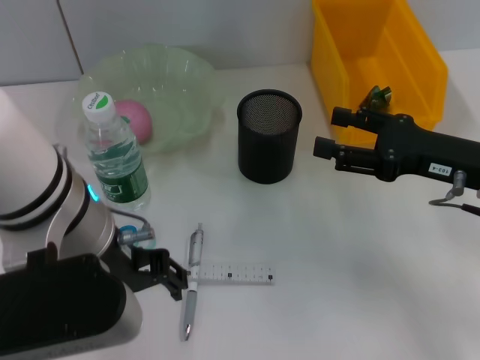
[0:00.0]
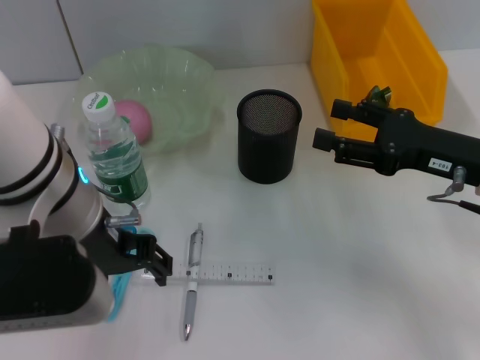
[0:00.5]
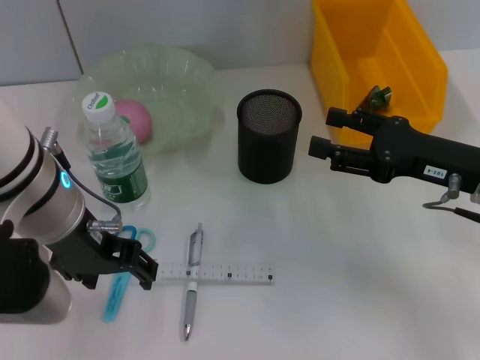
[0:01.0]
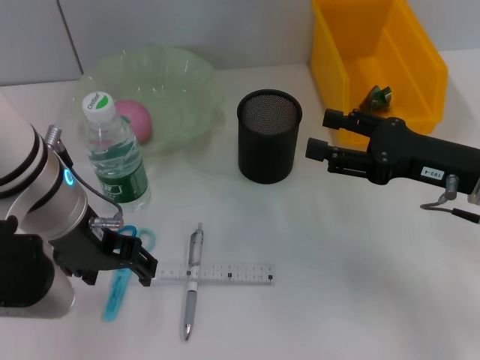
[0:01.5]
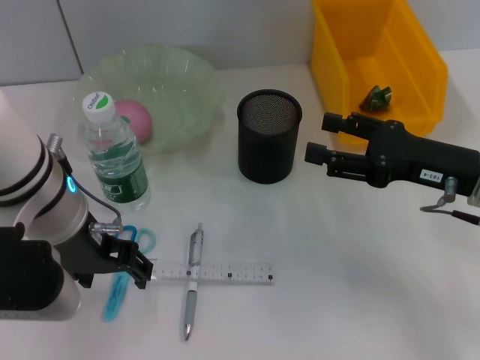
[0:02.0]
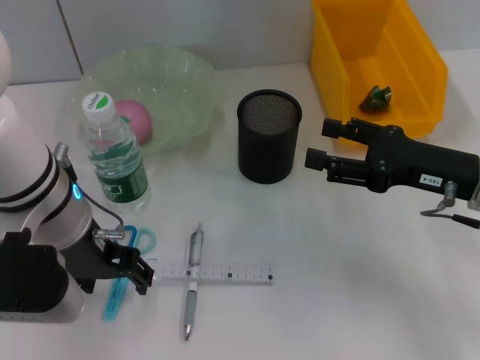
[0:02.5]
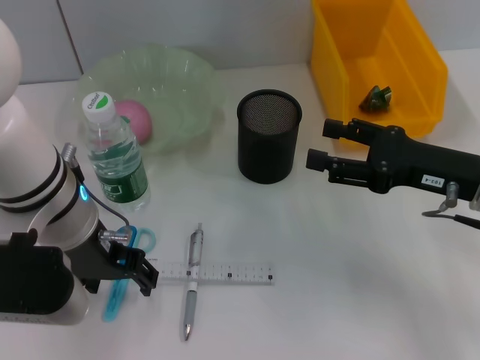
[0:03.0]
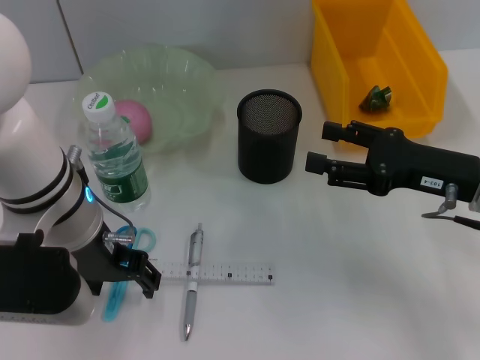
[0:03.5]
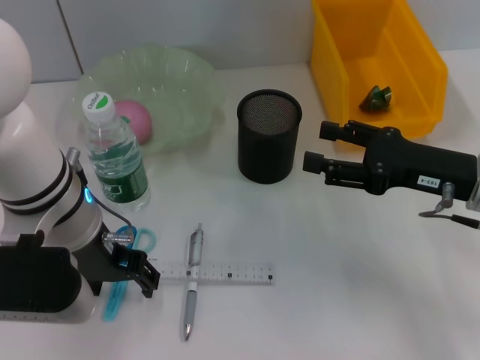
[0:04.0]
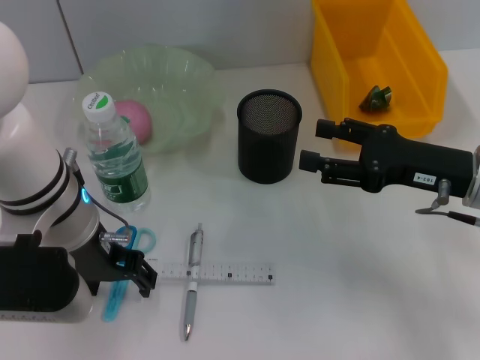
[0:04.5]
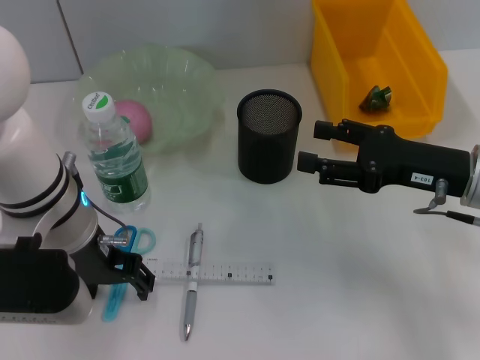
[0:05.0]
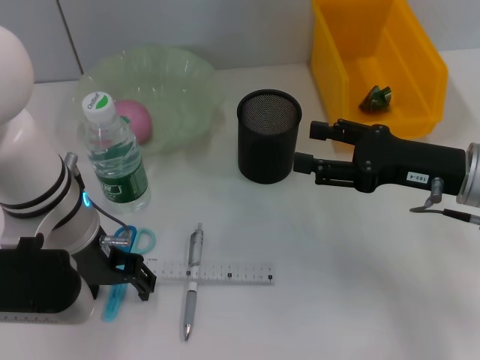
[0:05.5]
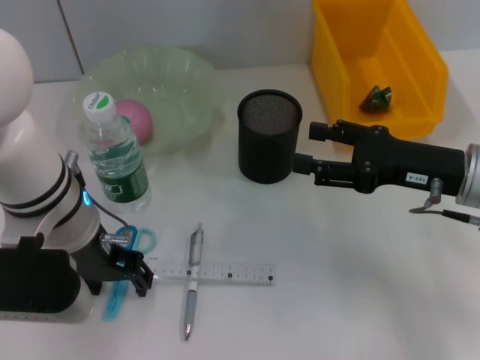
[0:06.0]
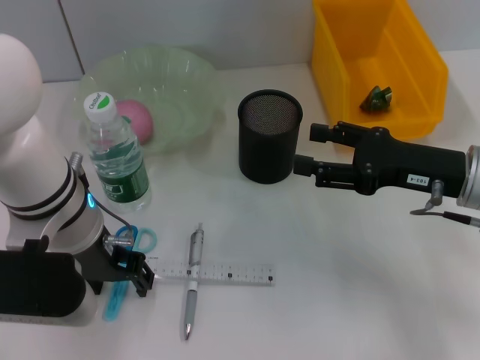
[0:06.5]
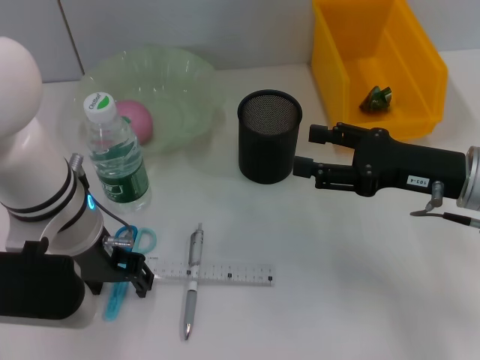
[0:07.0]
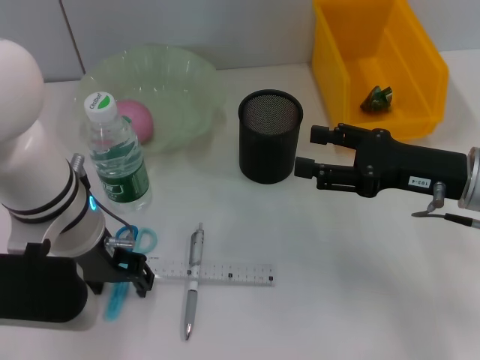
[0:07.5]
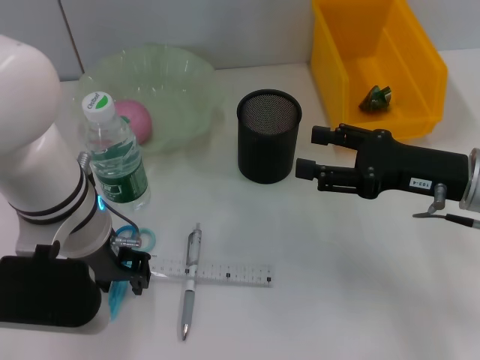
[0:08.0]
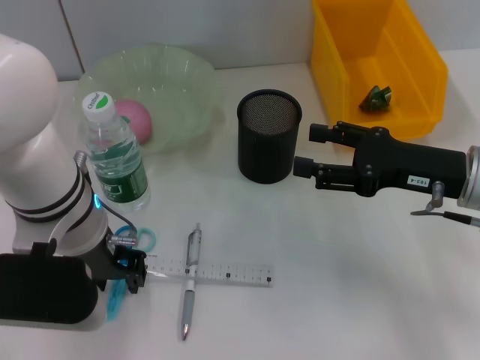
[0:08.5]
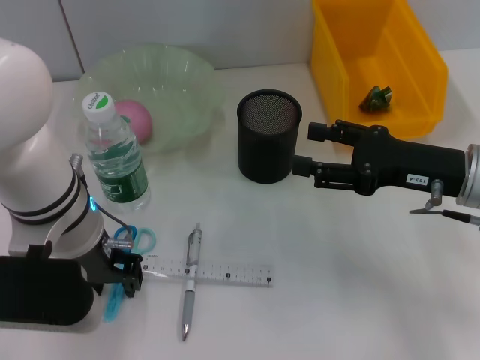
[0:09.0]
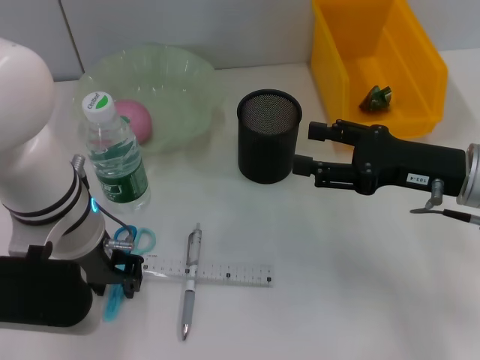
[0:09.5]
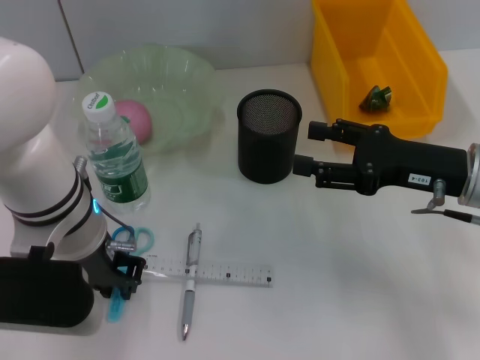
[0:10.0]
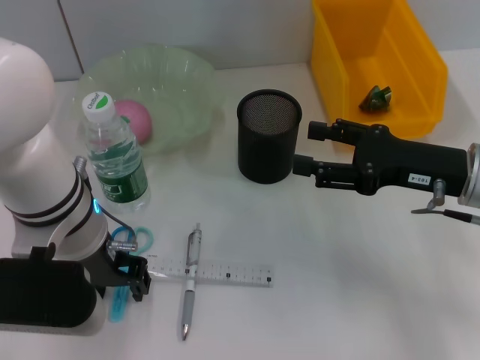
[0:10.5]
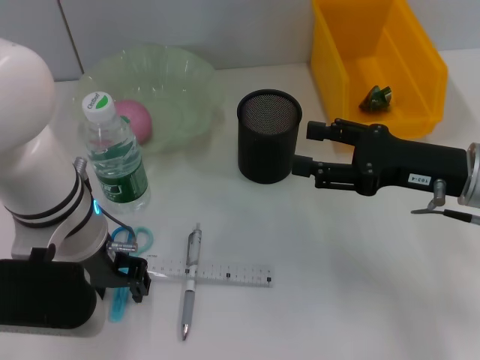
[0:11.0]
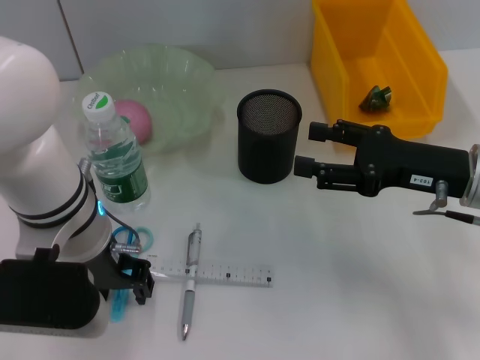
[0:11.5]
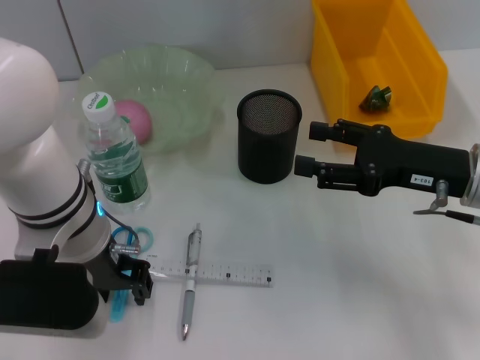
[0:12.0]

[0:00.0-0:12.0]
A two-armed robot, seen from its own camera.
0:00.0 to 0:02.0: The left gripper moves roughly 5 cm.
0:02.0 to 0:04.0: The grippers move only a little.
0:04.0 to 0:06.0: Both grippers stay put.
0:06.0 to 0:08.0: The grippers stay close to where they were, moving slightly.
0:08.0 to 0:10.0: The left gripper closes up.
0:10.0 to 0:12.0: The left gripper opens.

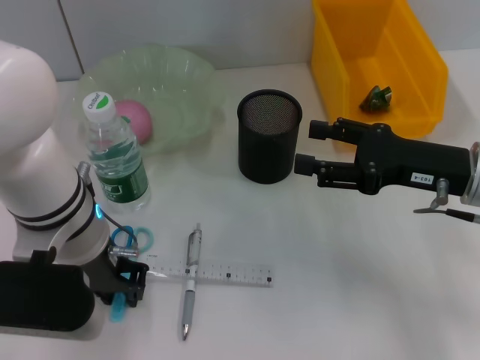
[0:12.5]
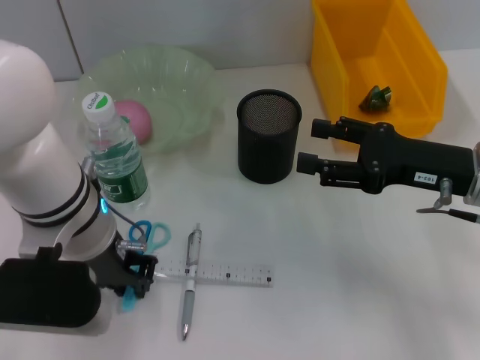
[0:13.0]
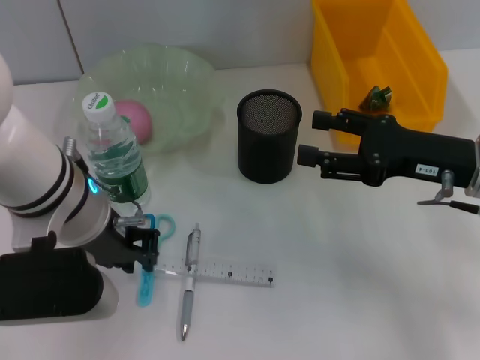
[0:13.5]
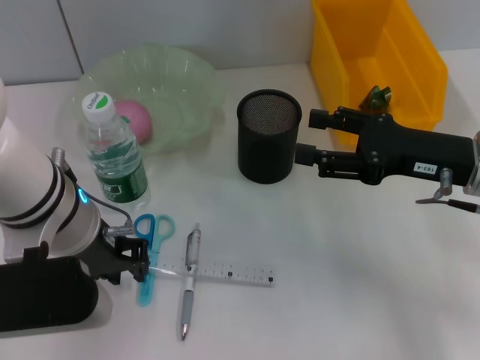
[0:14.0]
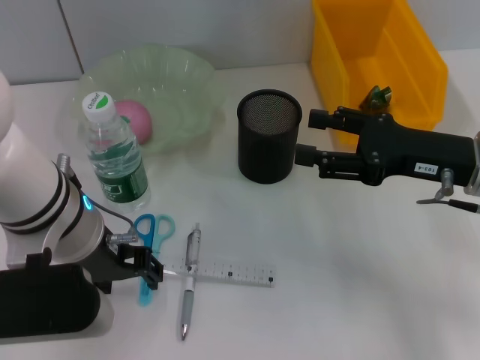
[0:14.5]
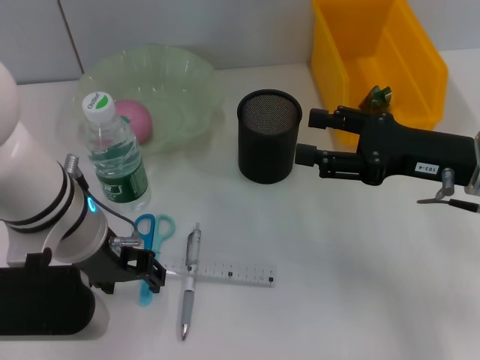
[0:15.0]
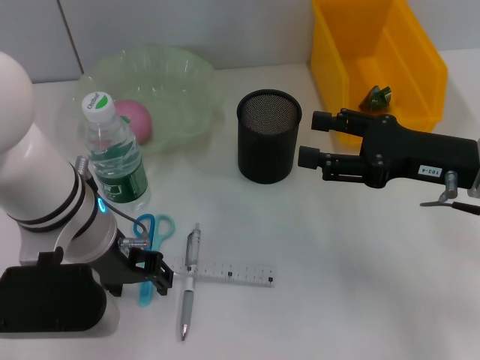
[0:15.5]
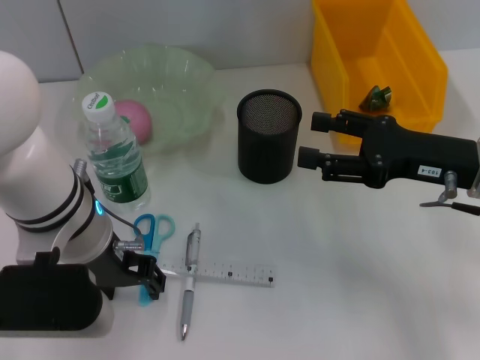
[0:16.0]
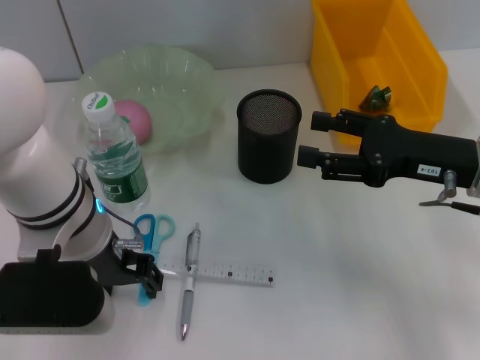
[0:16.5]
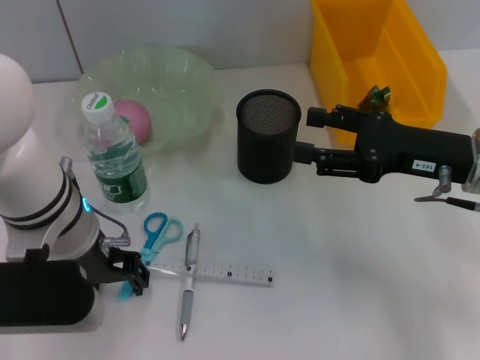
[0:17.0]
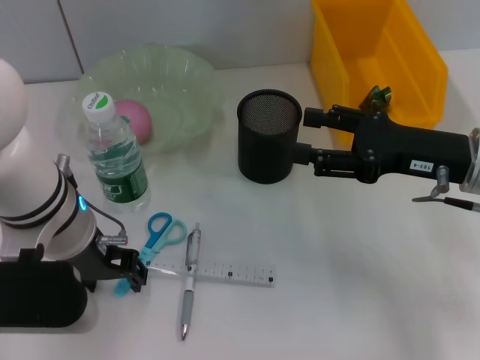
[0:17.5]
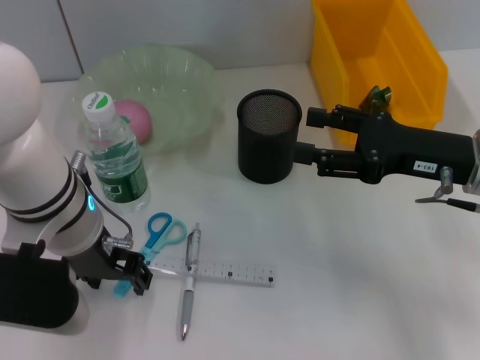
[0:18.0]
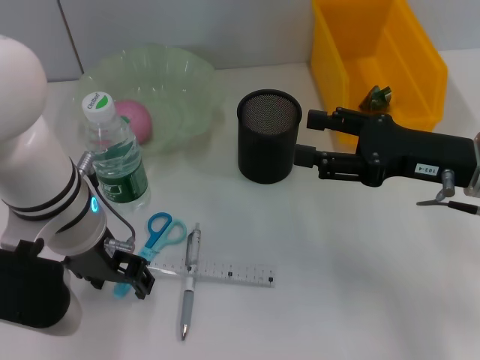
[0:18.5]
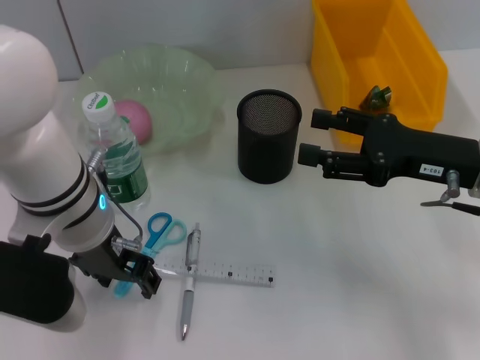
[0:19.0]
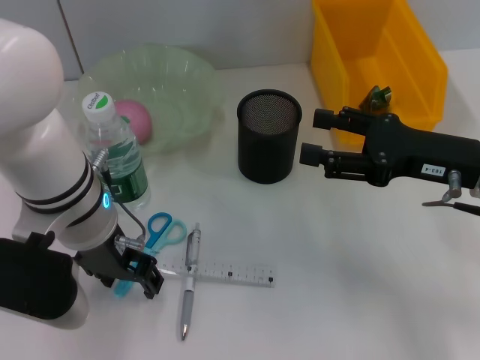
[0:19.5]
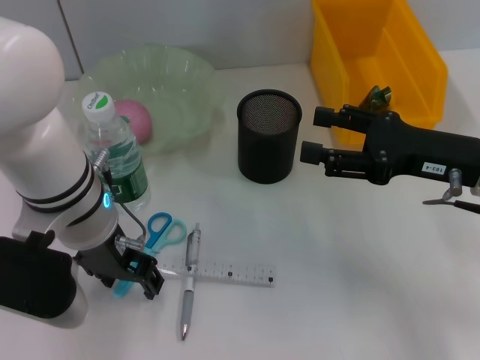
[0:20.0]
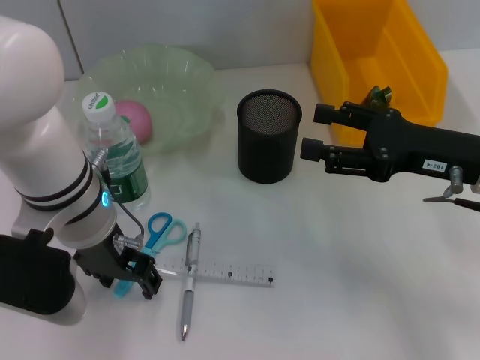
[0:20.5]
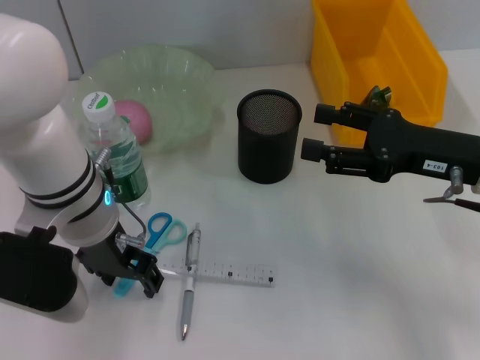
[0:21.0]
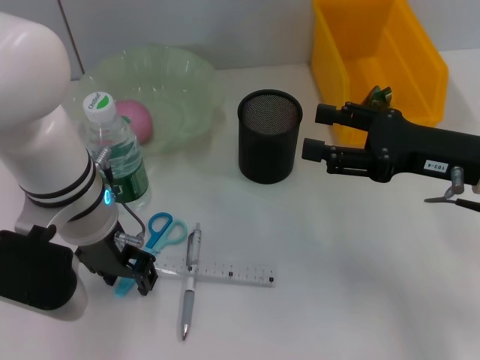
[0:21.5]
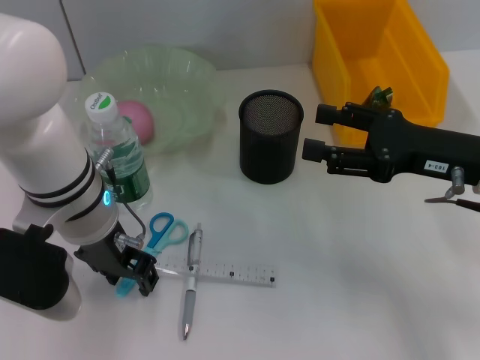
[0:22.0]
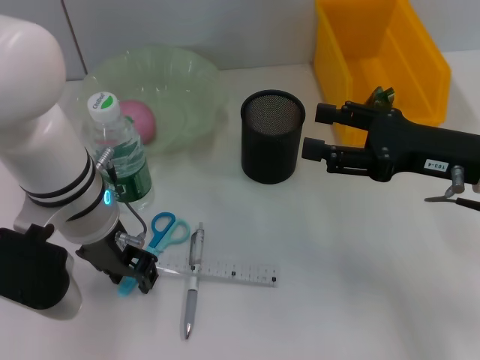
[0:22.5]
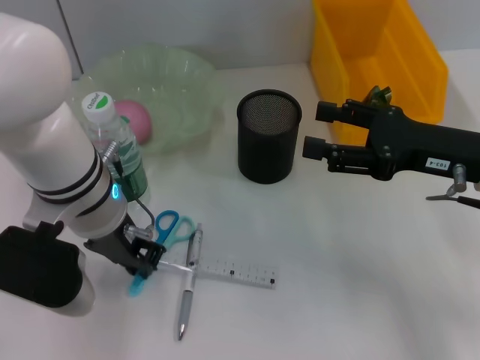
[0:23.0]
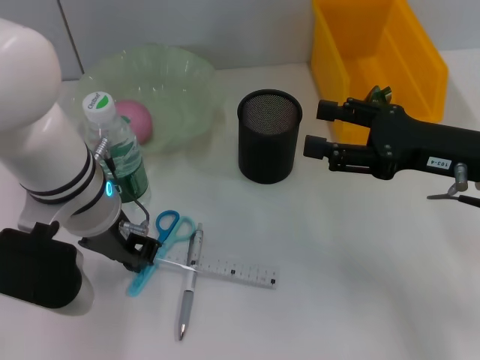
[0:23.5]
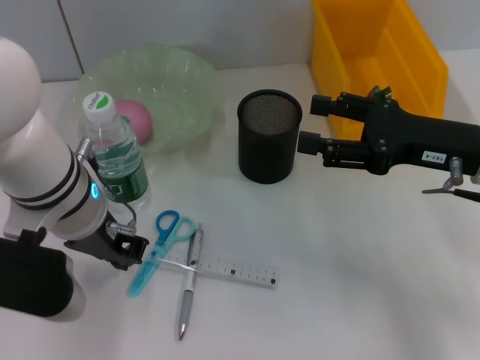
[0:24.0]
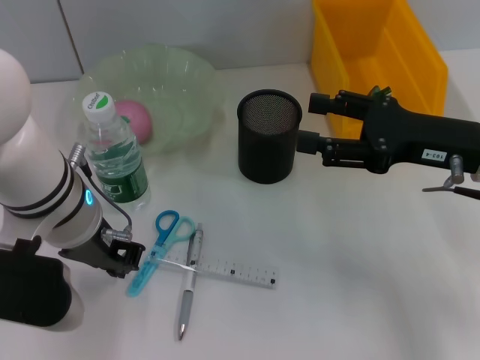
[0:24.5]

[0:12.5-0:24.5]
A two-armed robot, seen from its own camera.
0:12.5 to 0:18.5: There are only small adjustments of the grippers.
0:18.5 to 0:20.5: Both grippers stay put.
0:20.5 to 0:22.5: Both grippers stay put.
0:22.5 to 0:24.5: The left gripper closes its fingers.

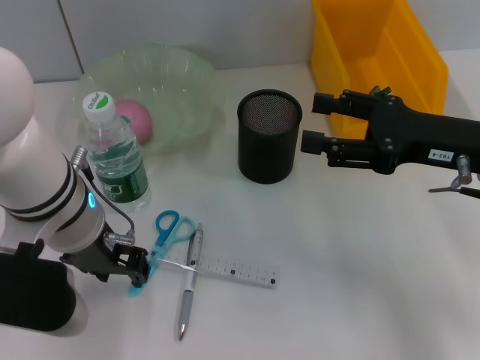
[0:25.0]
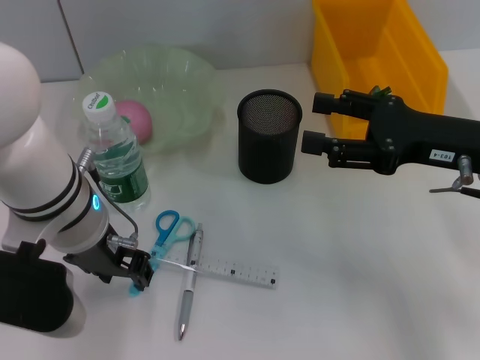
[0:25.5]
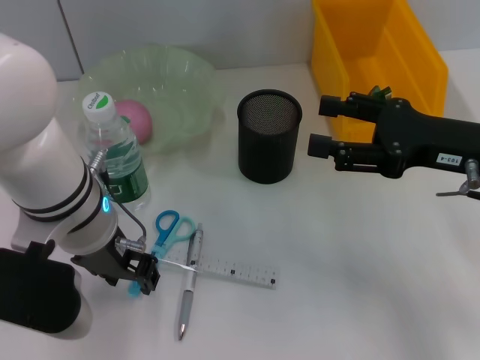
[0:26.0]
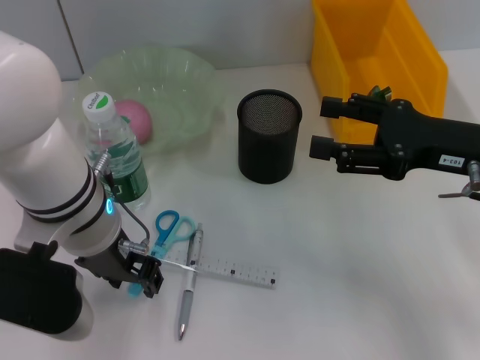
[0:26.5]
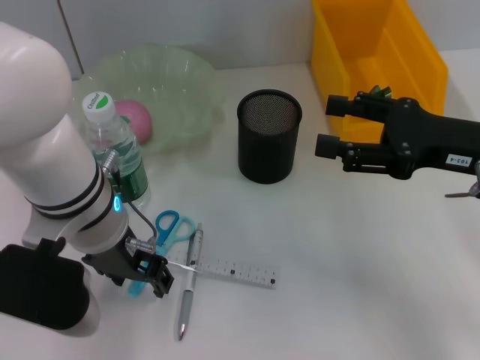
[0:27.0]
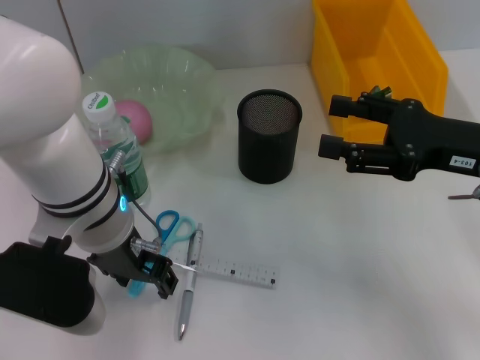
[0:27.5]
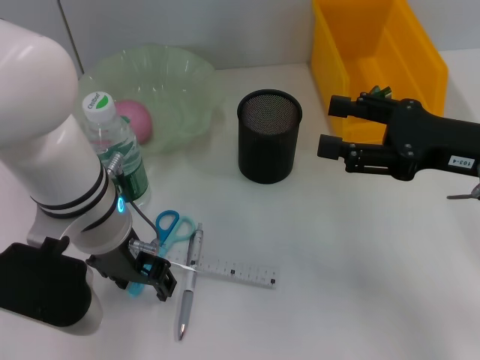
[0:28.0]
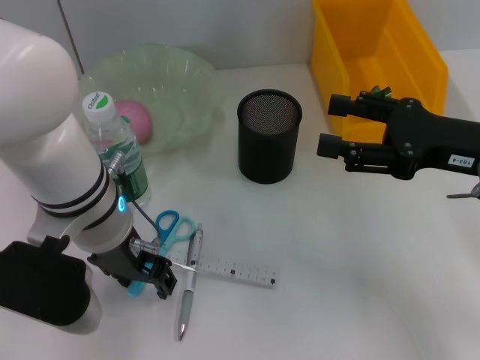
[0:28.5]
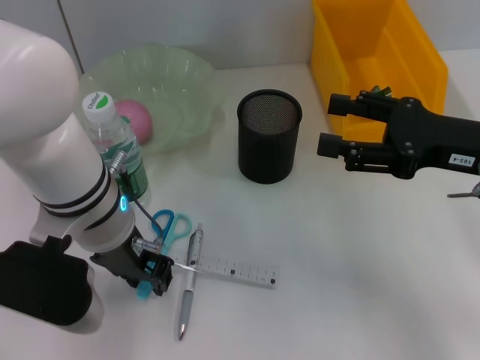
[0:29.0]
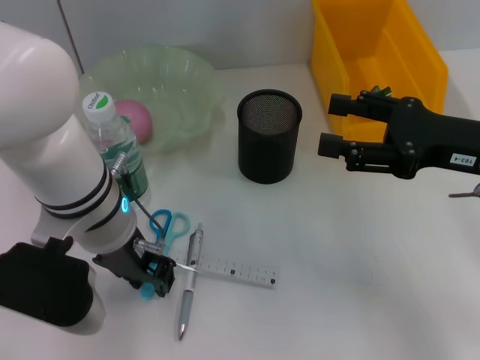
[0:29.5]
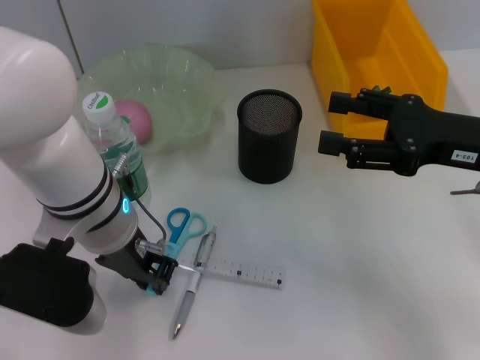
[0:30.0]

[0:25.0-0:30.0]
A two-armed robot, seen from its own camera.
0:25.0 to 0:27.5: The left gripper opens its fingers.
0:27.5 to 0:30.0: The left gripper closes.
